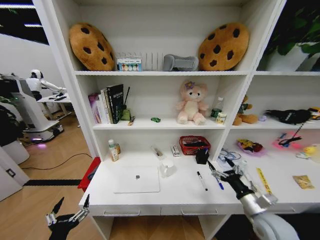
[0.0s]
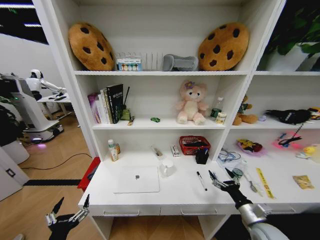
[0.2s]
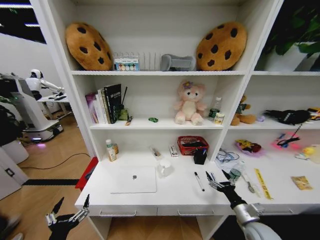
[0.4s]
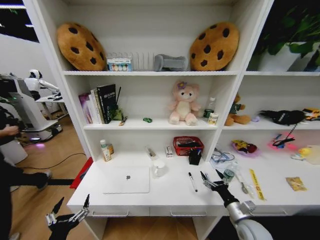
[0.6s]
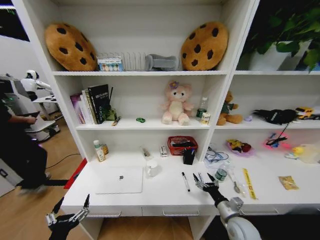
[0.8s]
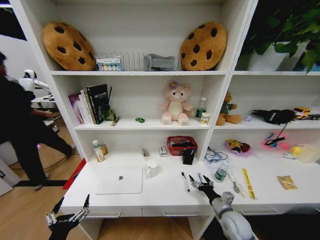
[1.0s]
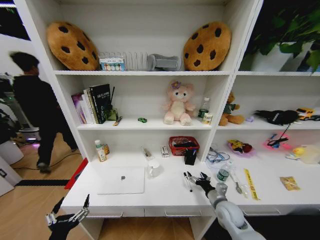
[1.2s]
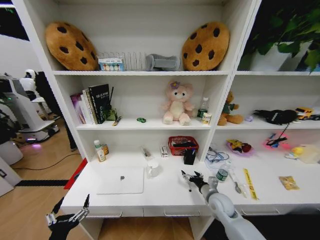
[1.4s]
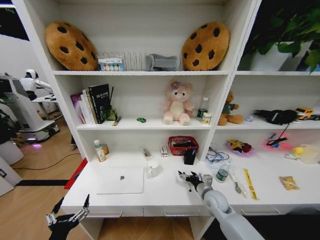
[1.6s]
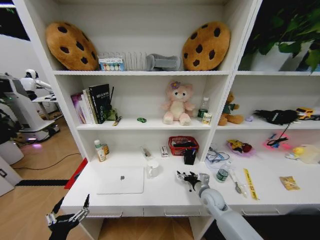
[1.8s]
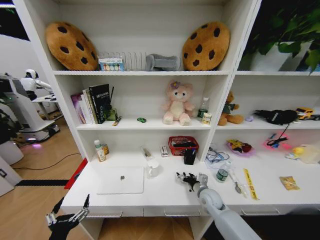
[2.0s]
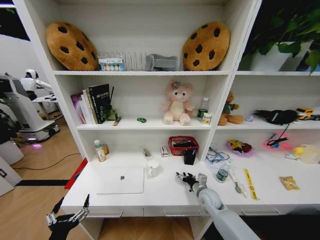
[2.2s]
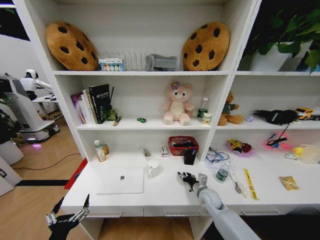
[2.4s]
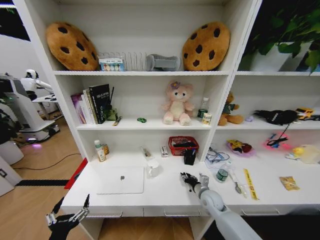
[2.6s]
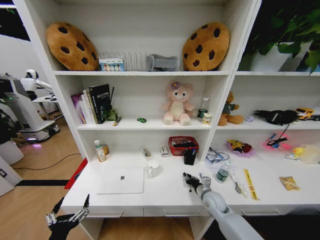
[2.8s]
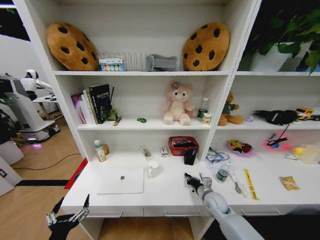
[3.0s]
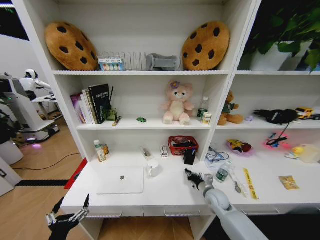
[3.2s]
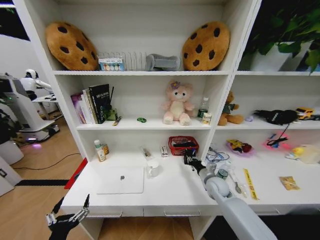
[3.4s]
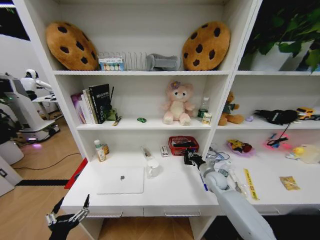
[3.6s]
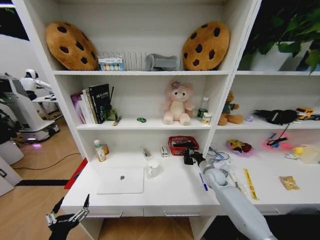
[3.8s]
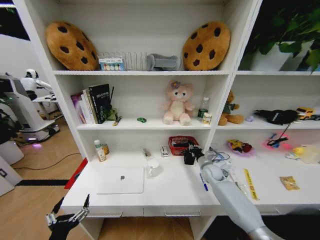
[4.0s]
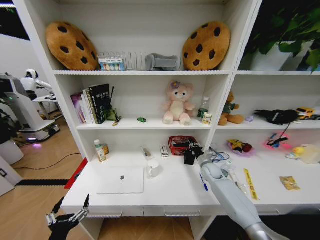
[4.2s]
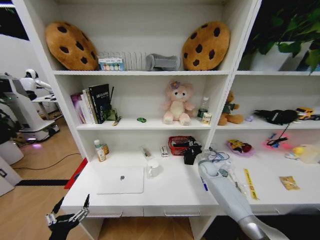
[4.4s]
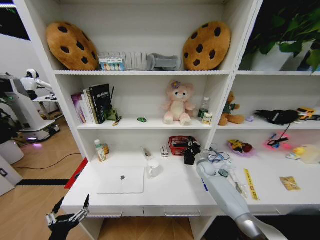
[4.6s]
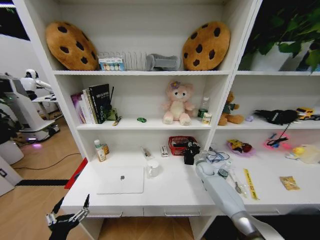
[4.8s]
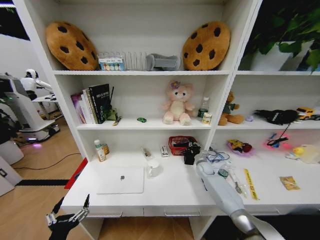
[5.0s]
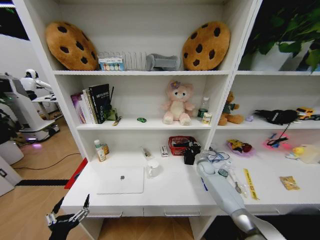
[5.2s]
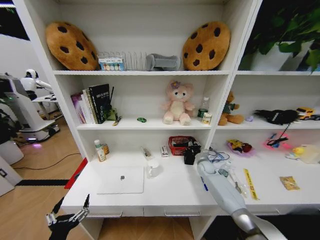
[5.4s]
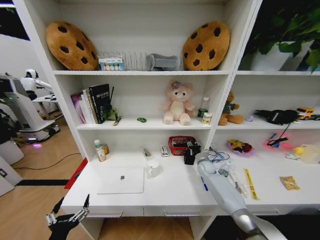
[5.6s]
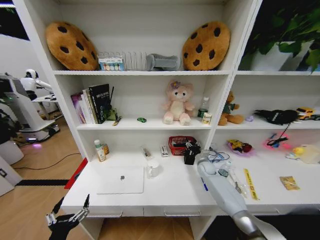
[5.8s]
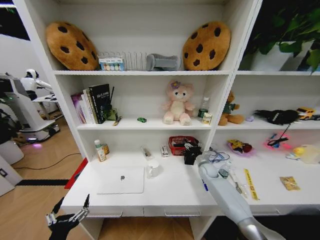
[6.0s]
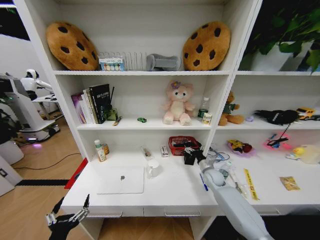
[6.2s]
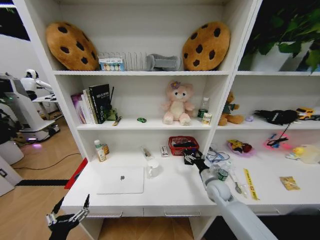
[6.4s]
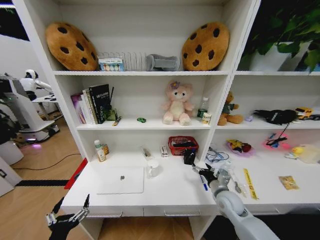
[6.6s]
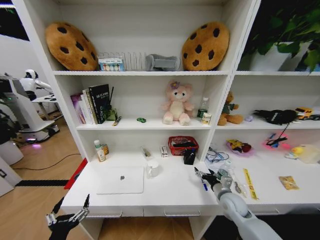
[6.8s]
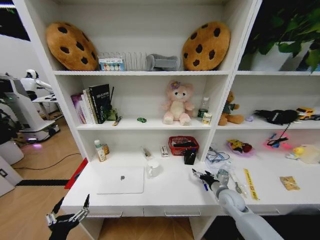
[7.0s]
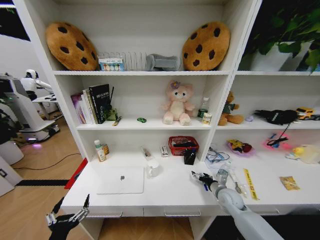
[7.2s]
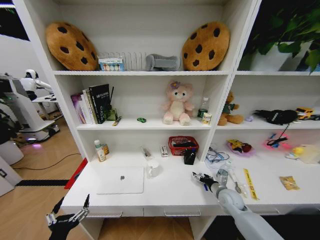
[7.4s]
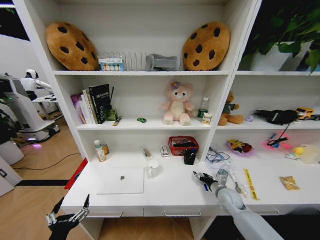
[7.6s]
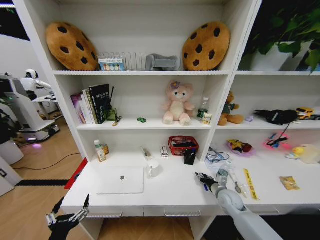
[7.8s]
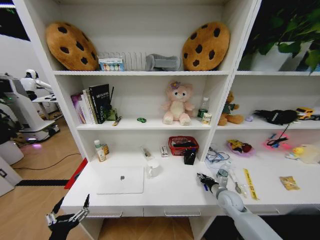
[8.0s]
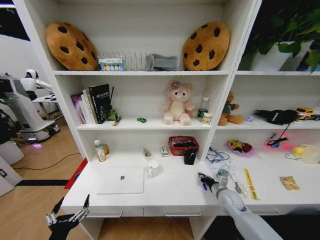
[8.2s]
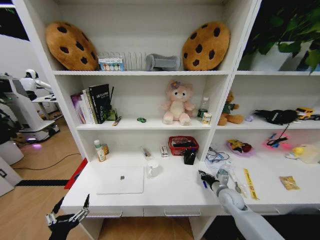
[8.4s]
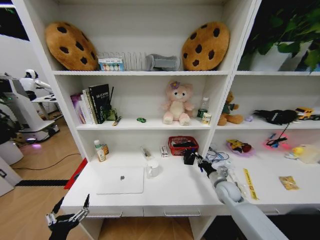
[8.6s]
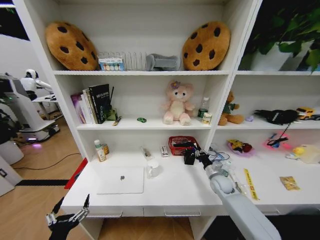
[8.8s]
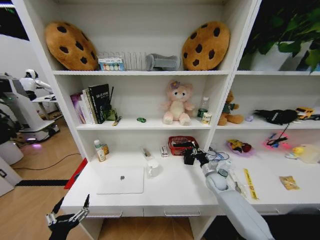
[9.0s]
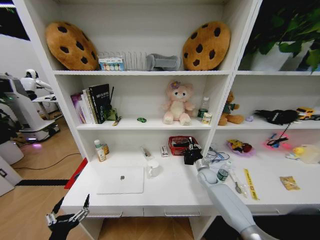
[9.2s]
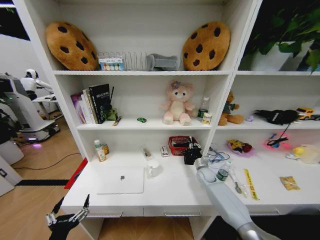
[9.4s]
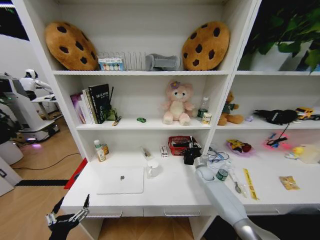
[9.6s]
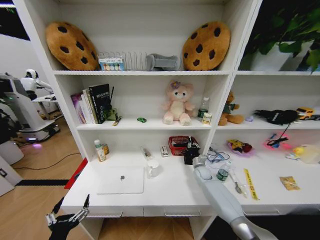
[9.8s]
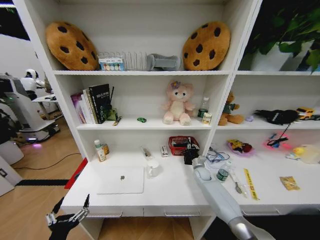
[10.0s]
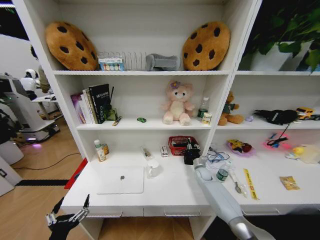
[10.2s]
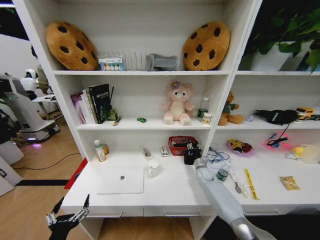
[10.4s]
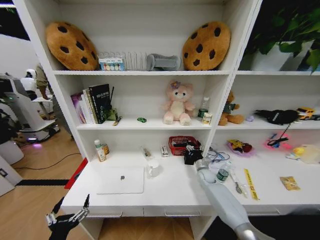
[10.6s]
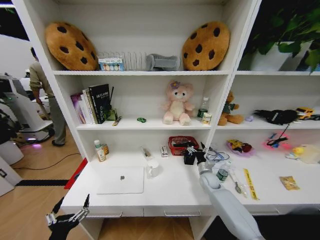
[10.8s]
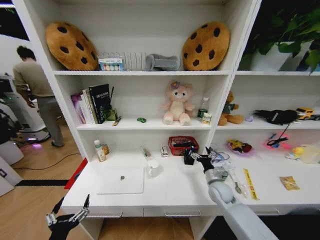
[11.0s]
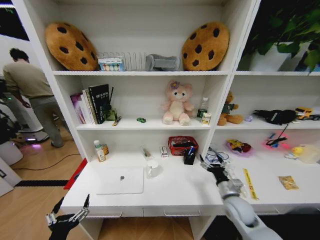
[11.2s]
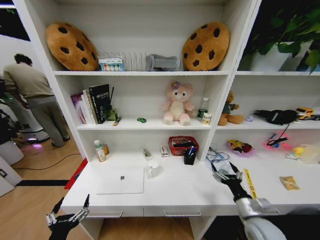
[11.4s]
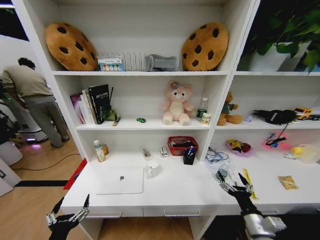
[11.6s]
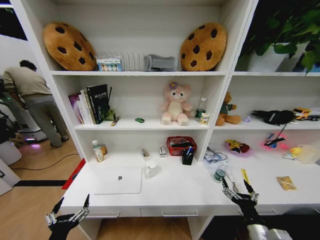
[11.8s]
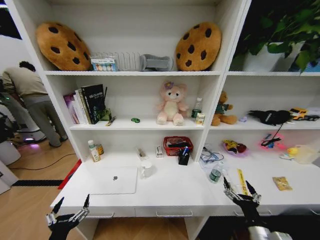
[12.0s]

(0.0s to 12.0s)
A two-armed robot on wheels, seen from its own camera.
Task of the whole recording: Organize the objects on the table.
0.0s - 1.6s: The right gripper goes about 15 cm forward, to the left and downward.
1.6s - 3.0s: The right gripper closes.
3.0s - 4.4s: The right gripper is displaced forward by some 15 cm.
4.4s - 6.0s: The right gripper opens up.
6.0s - 7.6s: The right gripper is displaced backward by roughly 15 cm.
7.6s - 9.0s: The right gripper moves forward, roughly 10 cm, and closes up.
9.0s - 10.4s: The right gripper moves forward, approximately 5 cm, and opens its fingers.
10.4s - 12.0s: The right gripper is displaced backward by about 35 cm, and opens up.

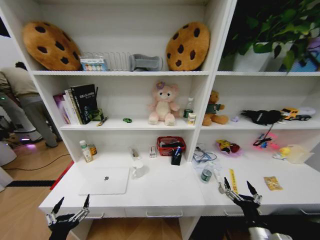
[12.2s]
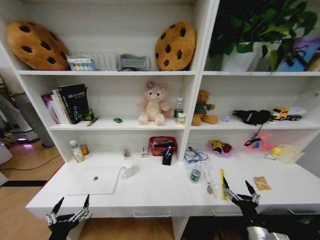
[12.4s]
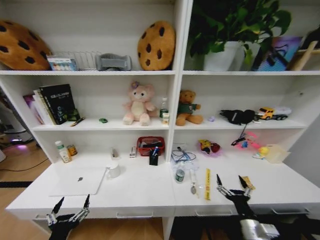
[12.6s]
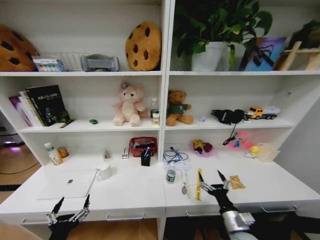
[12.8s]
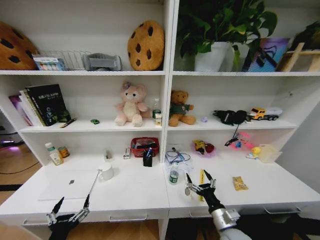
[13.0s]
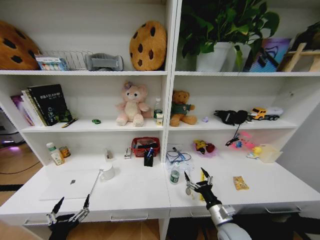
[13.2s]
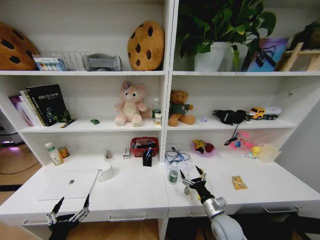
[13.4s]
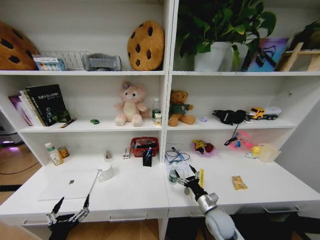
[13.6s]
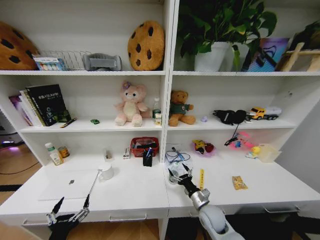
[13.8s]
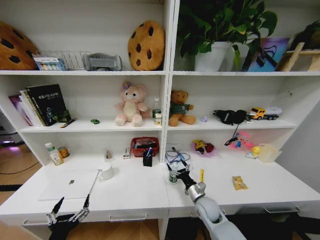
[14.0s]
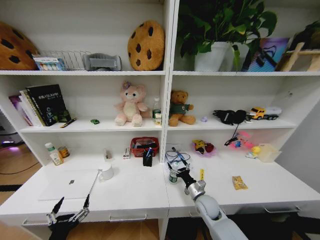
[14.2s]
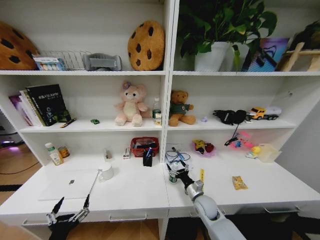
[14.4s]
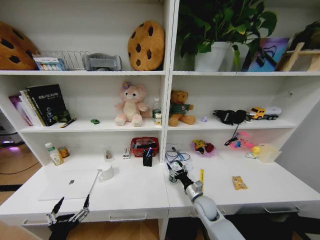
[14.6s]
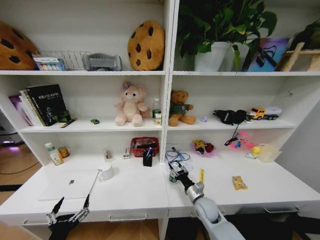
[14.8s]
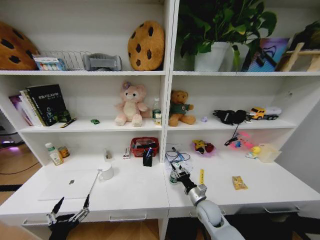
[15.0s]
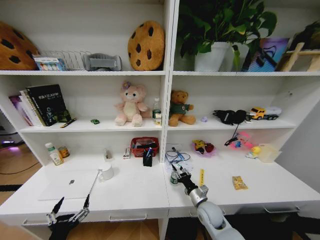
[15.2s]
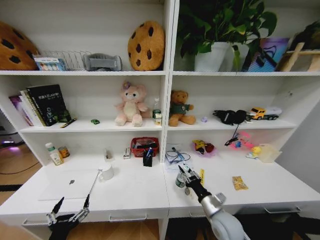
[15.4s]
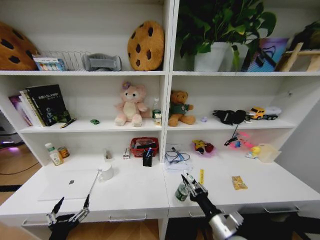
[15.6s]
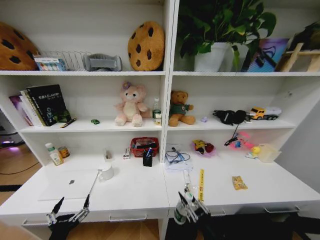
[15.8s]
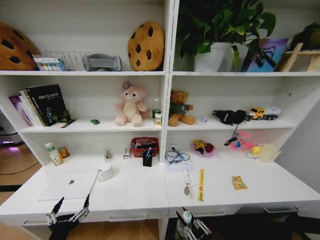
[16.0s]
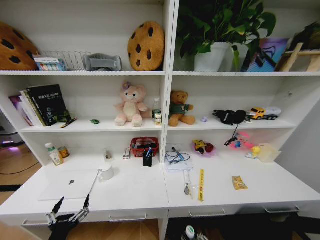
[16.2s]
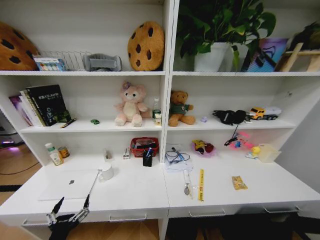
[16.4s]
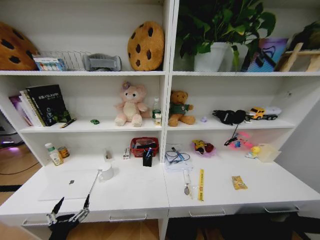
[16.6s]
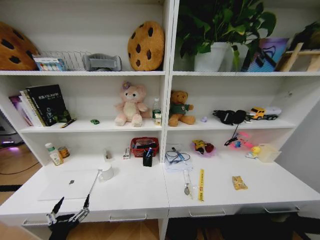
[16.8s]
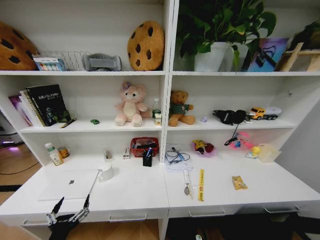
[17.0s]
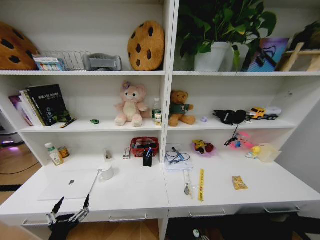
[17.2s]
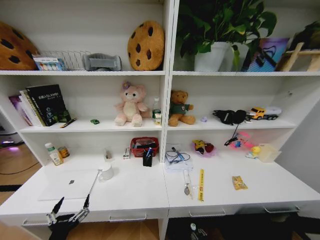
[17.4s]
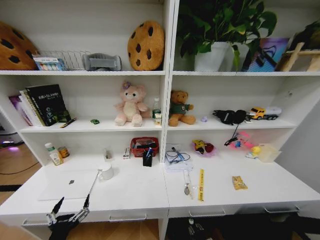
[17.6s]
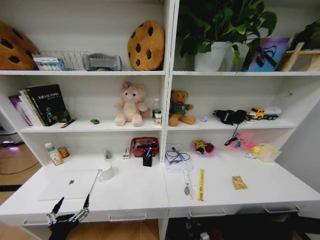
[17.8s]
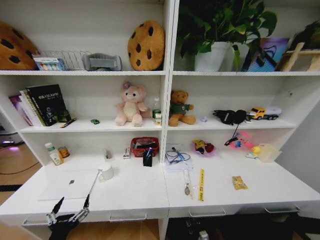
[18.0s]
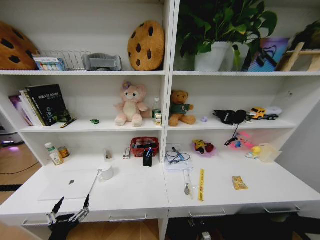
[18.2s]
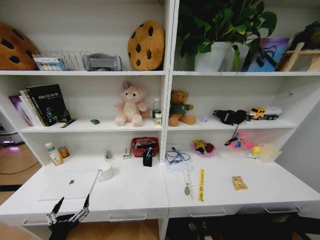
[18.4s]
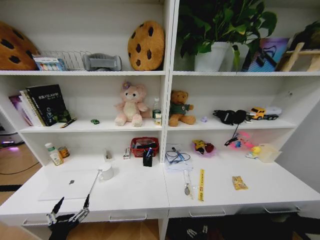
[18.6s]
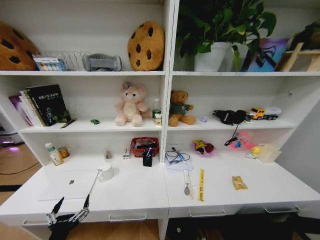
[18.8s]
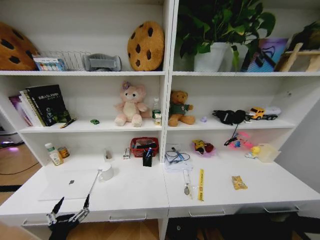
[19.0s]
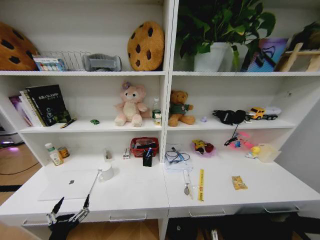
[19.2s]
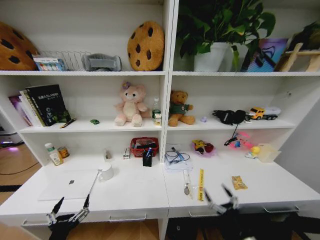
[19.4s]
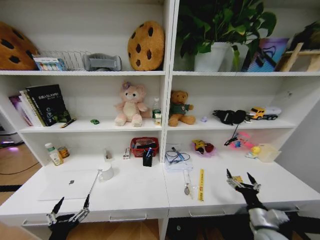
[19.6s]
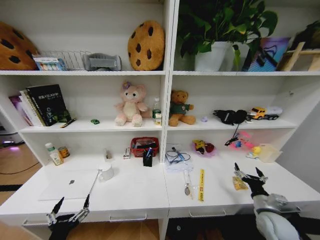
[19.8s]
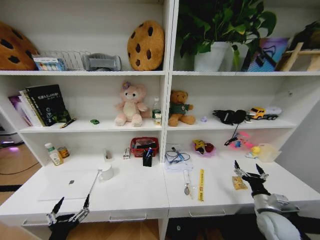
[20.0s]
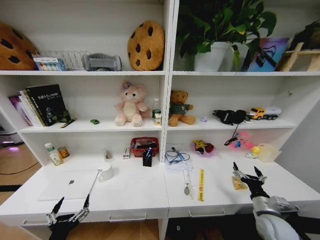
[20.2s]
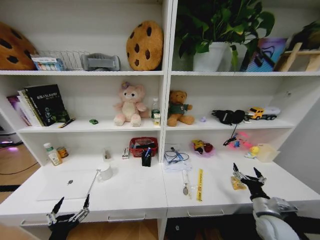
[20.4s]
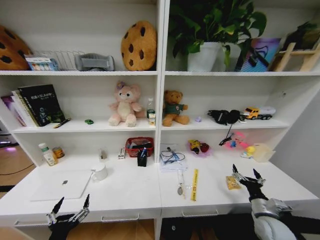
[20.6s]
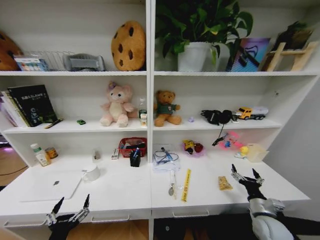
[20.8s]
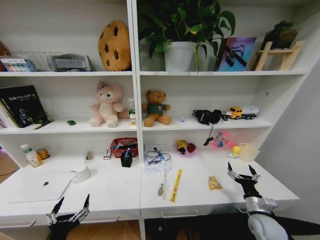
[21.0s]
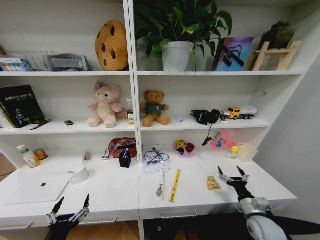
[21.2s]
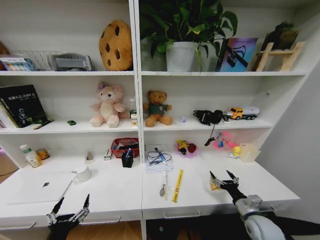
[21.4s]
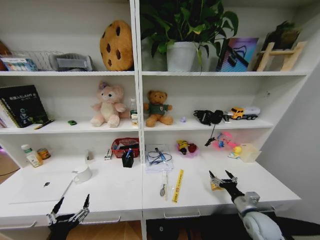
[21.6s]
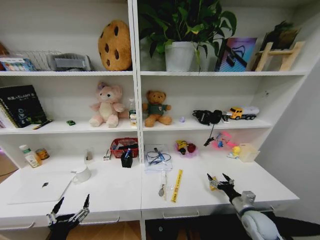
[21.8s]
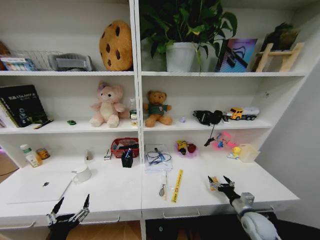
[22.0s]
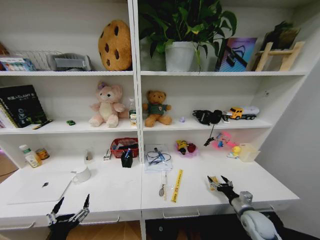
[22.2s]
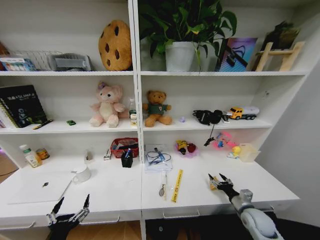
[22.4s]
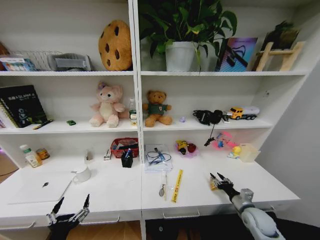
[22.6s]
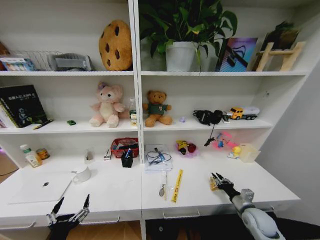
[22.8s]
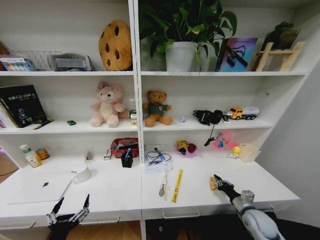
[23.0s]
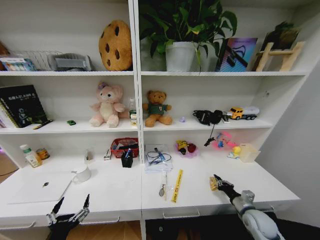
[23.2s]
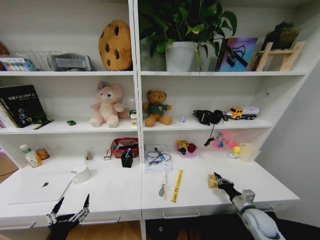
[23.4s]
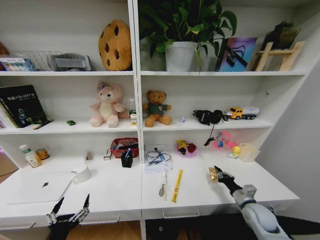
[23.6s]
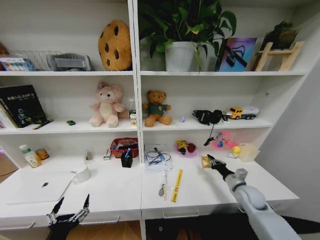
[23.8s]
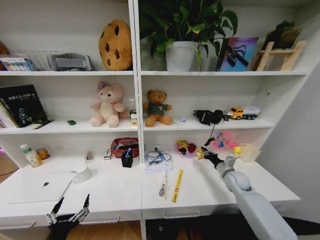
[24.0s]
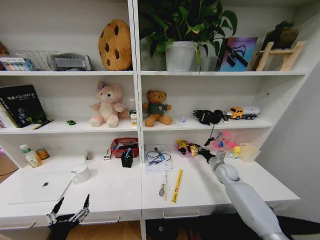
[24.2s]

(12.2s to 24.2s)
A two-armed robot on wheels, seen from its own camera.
Task of the whole recording: Organize the objects on the table.
12.2s - 13.8s: The right gripper goes roughly 20 cm forward and to the left.
13.8s - 15.2s: The right gripper closes up.
15.2s - 16.6s: The right gripper travels backward by about 35 cm.
16.6s - 18.2s: The right gripper is displaced downward and forward by roughly 30 cm.
18.2s - 19.8s: The right gripper heads upward, covering approximately 35 cm, and opens up.
21.2s - 22.6s: The right gripper closes its fingers.
22.6s - 24.2s: The right gripper travels forward by approximately 20 cm, and closes its fingers.
